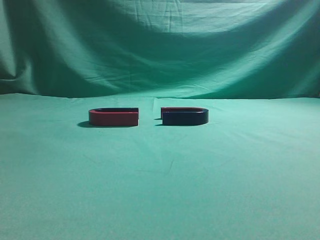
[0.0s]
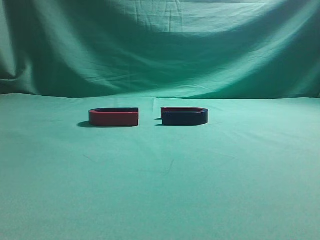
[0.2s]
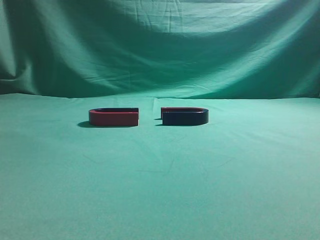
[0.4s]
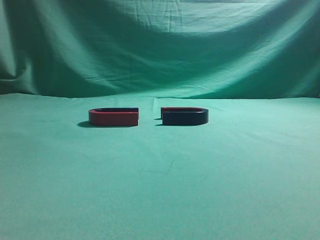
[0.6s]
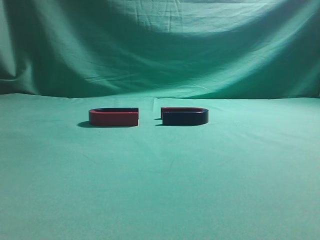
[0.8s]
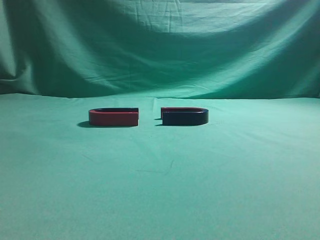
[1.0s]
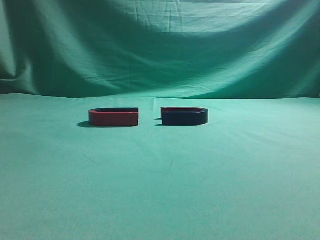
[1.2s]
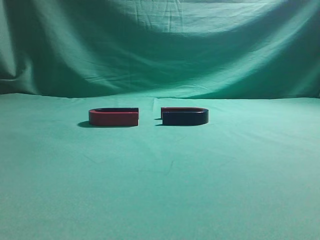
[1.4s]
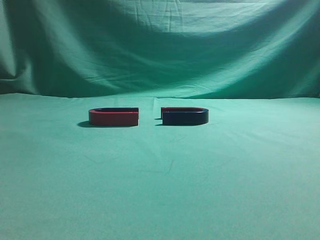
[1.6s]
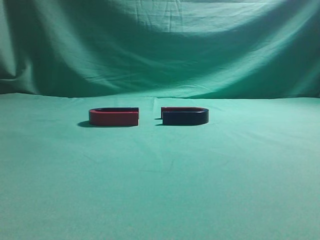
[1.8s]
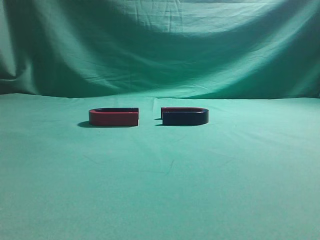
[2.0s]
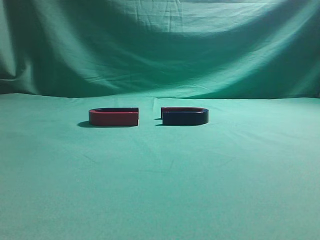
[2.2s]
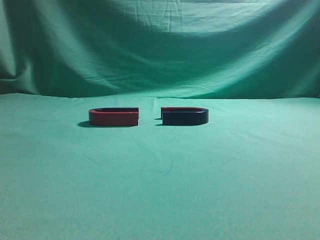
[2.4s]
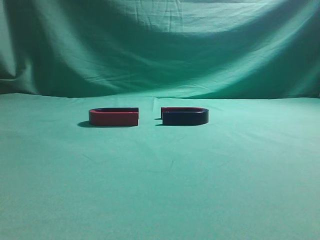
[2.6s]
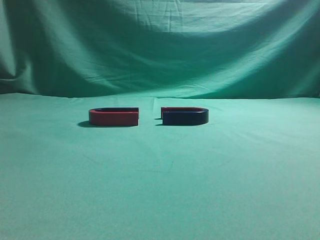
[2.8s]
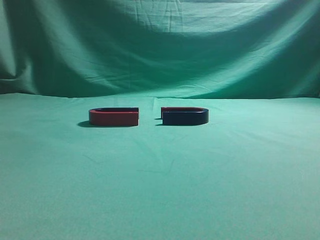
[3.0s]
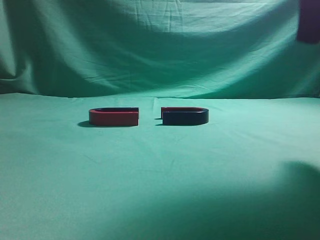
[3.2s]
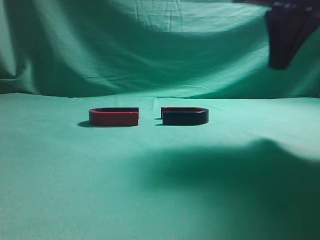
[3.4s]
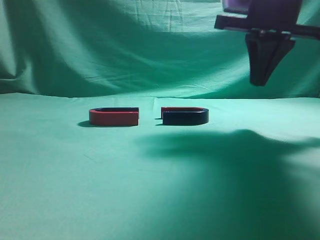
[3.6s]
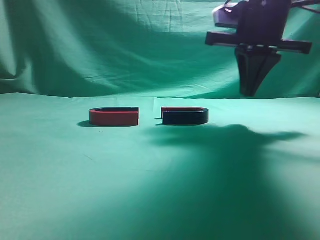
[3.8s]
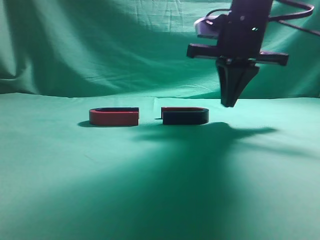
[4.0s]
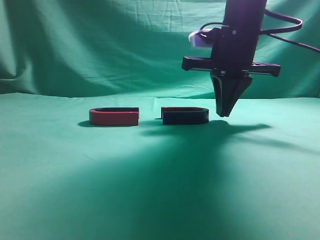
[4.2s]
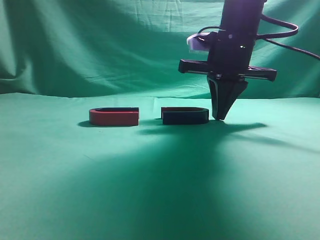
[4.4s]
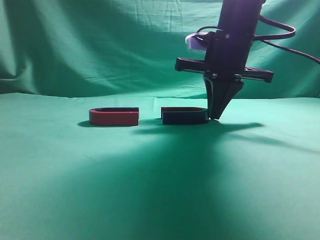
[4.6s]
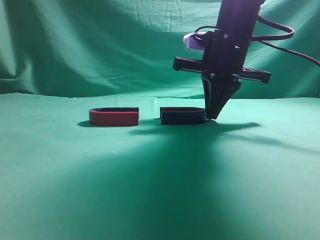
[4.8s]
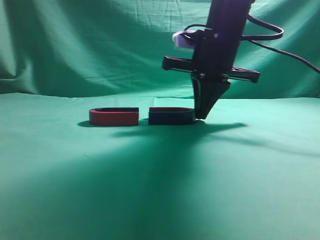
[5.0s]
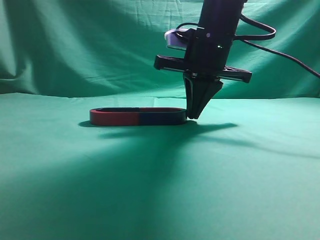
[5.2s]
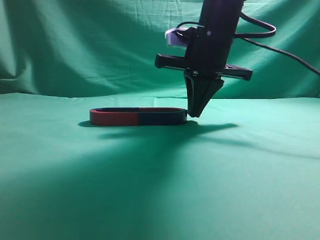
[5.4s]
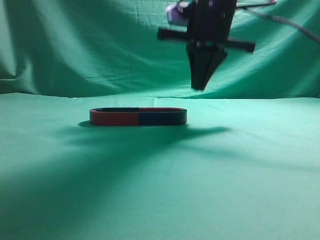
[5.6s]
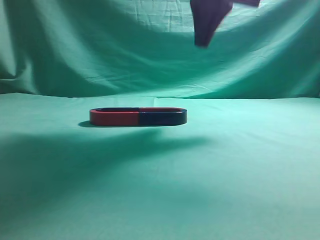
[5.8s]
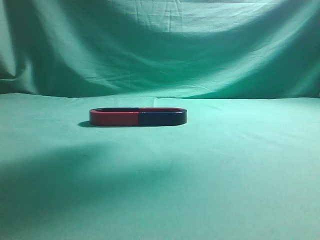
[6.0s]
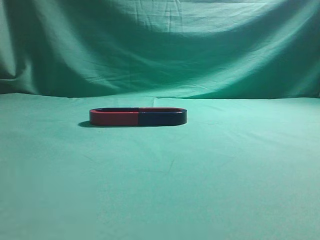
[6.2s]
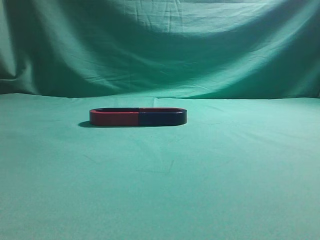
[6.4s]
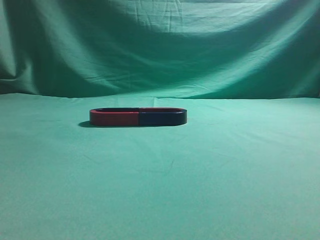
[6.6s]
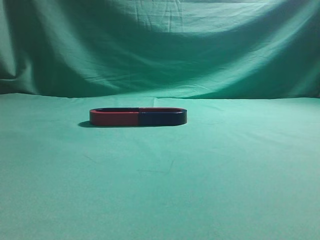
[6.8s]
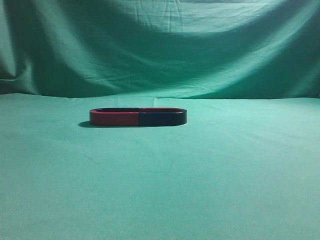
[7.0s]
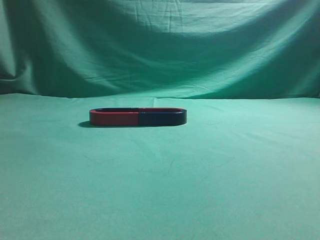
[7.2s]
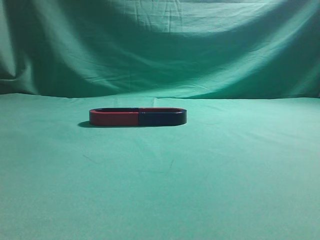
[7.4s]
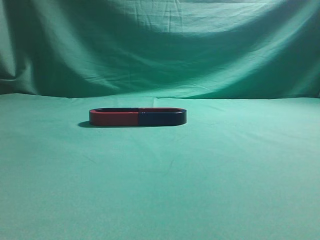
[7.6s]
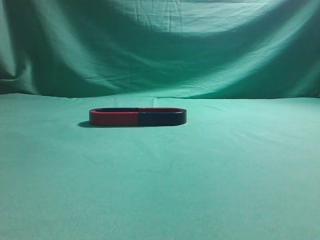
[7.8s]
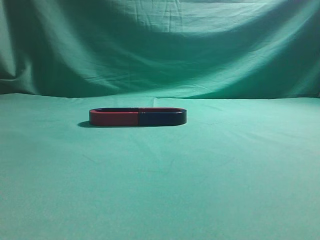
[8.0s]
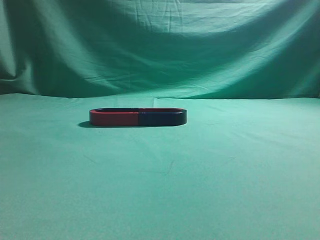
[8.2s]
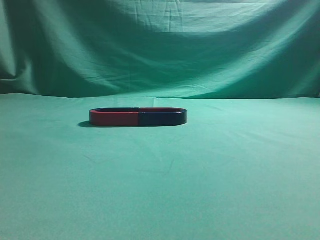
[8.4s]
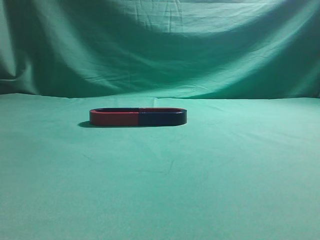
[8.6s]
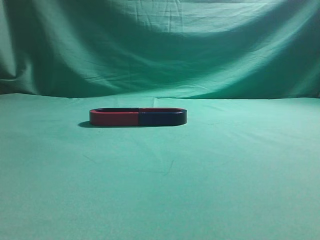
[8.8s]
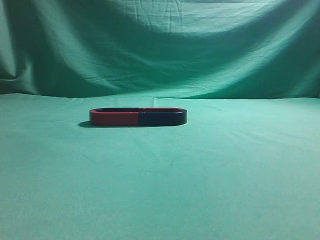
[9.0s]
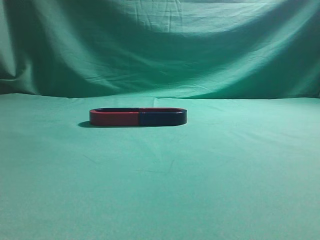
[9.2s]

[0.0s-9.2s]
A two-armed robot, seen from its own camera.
Task of the whole recording: push the magnet on the table from its original position to another position.
Step, 0.0s to 5.4s: Push the magnet on the right to connect the magnet on the left.
3.0s to 4.6s: The right gripper is displaced forward, downward and to the left by roughly 25 cm.
4.6s to 6.2s: The right gripper goes about 25 cm upward.

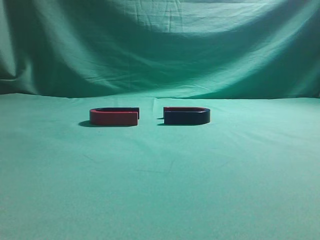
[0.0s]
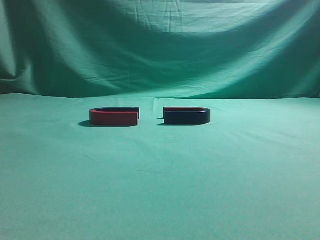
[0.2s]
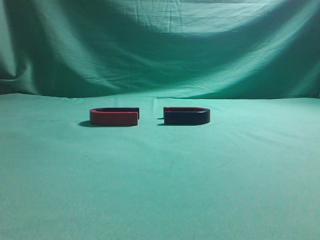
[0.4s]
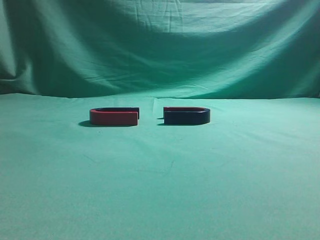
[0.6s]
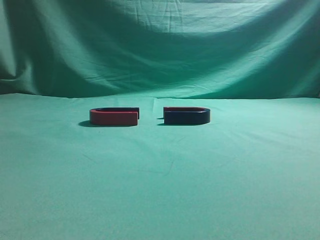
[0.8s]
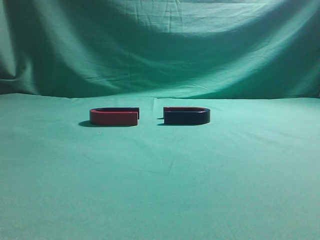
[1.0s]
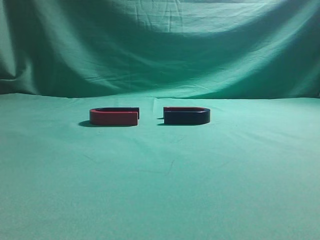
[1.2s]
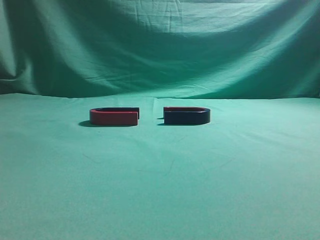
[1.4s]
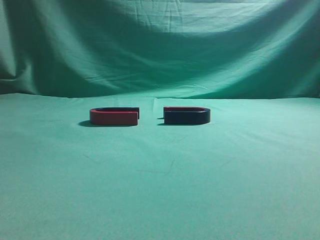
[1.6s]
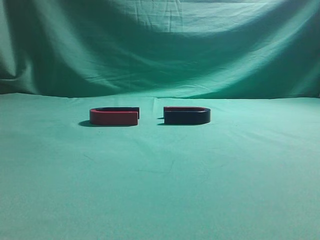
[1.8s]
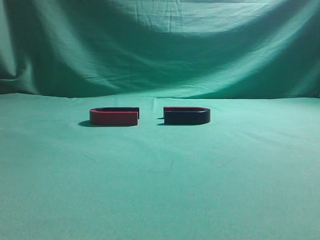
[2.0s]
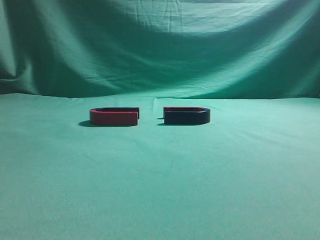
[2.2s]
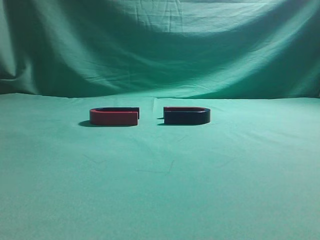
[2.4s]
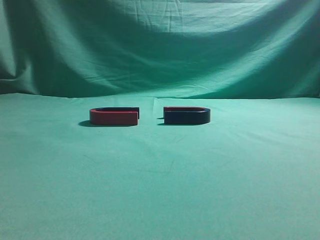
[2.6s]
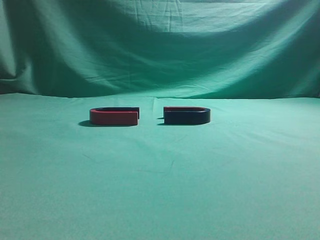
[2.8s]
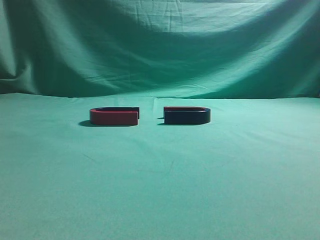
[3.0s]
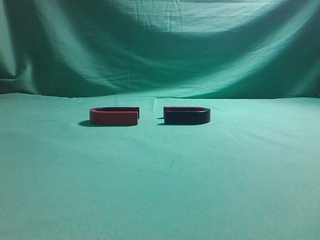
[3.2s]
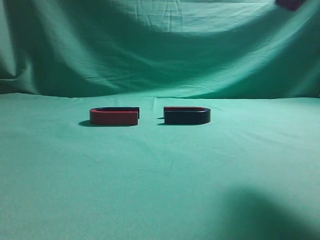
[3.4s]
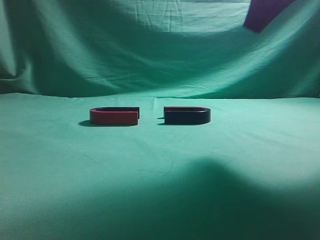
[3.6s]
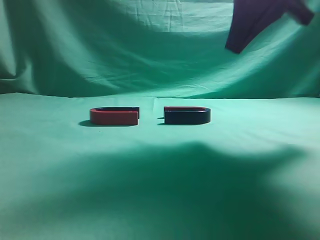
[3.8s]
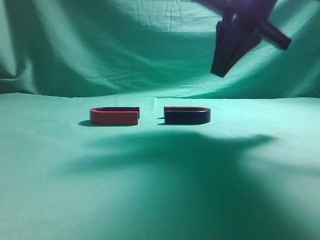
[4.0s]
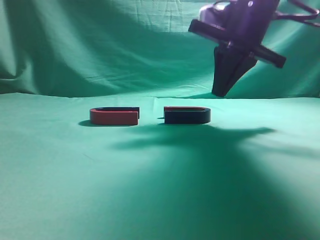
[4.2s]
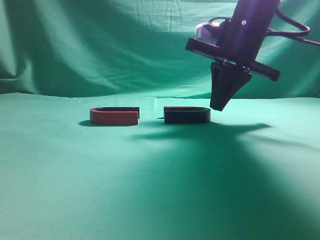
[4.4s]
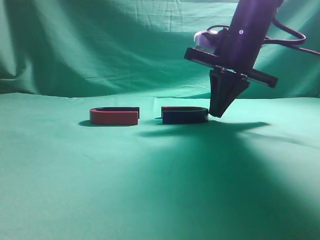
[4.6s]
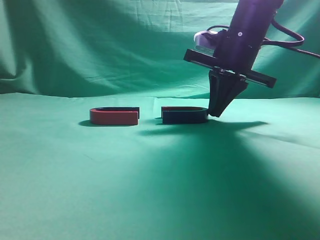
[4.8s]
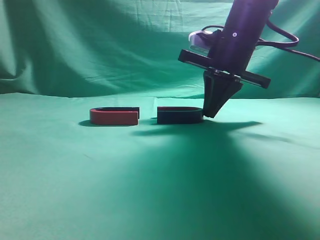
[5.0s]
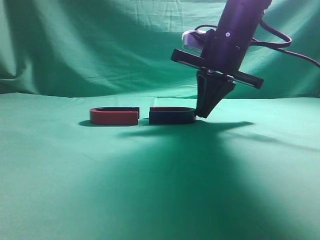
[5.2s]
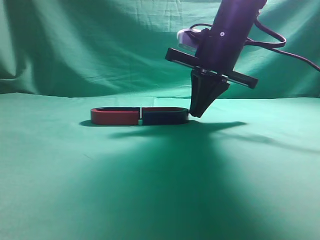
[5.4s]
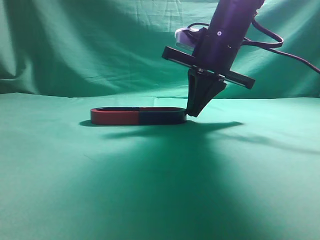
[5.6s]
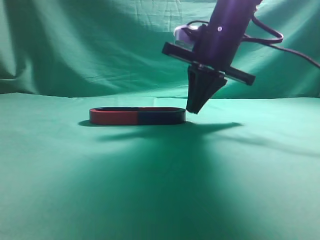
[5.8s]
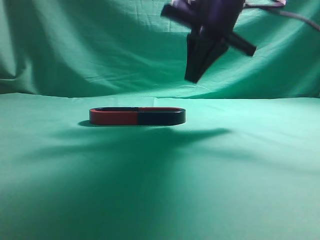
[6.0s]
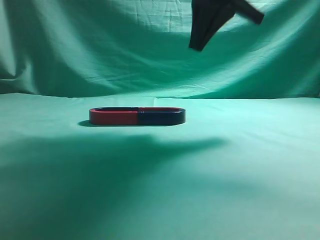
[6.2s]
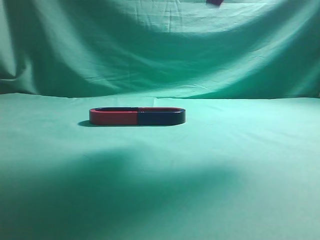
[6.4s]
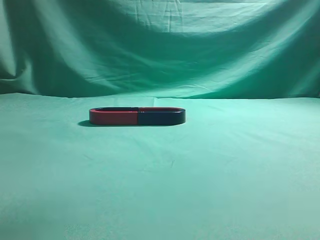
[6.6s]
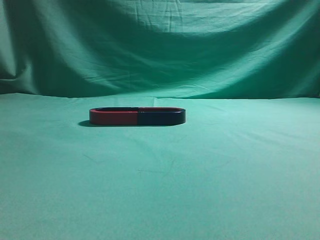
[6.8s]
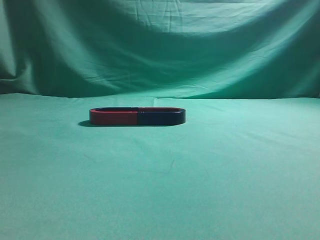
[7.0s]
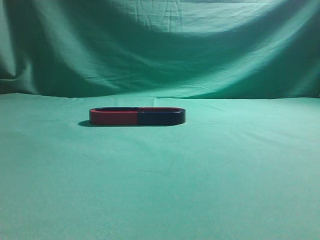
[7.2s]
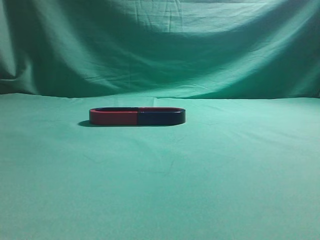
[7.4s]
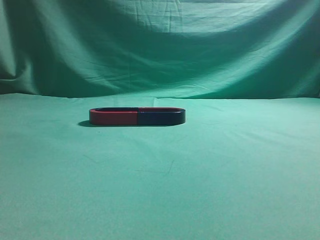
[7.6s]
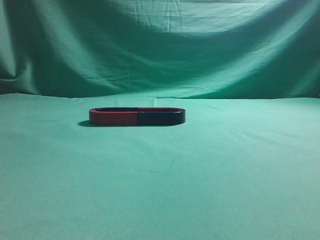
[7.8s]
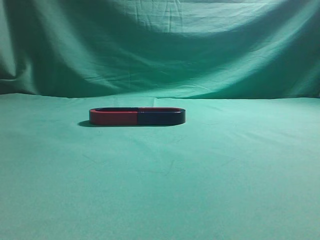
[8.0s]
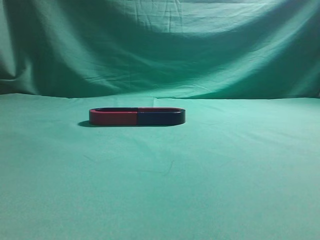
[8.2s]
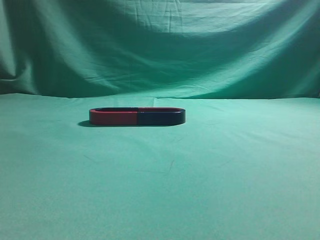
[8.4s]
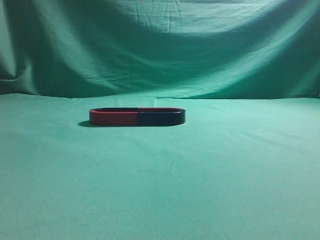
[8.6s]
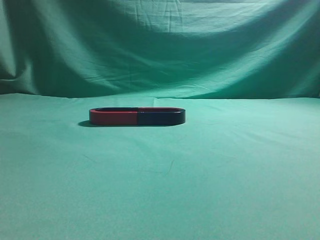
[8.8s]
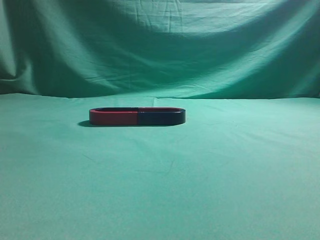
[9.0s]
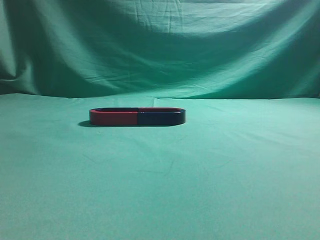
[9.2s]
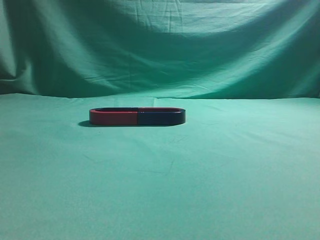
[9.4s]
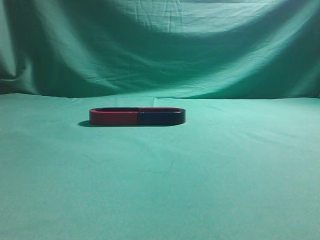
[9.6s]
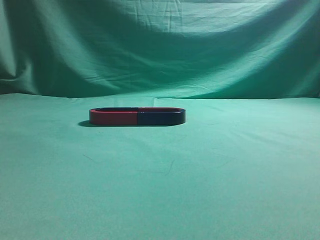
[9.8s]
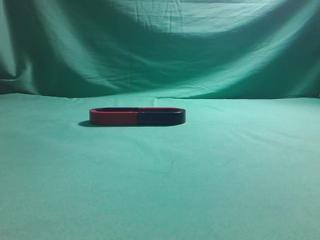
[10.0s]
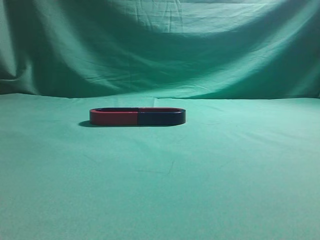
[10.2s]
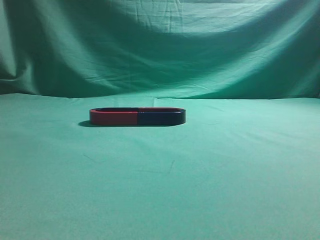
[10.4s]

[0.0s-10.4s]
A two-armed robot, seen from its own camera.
Task of the whole recording: push the magnet on the table from its original position to another position.
Step, 0.0s to 5.8s: Push the magnet on the right to connect the magnet on the left.
3.0s to 4.4s: The right gripper is displaced forward, downward and to the left by roughly 30 cm.
4.4s to 6.0s: The right gripper shifts by roughly 5 cm.
6.0s to 7.4s: The right gripper goes about 35 cm backward, upward and to the right.
